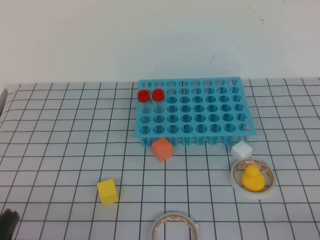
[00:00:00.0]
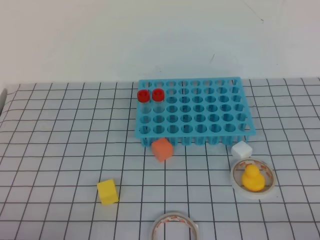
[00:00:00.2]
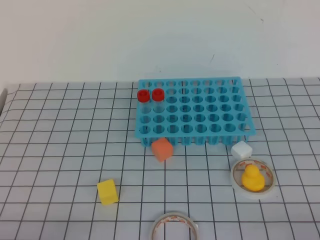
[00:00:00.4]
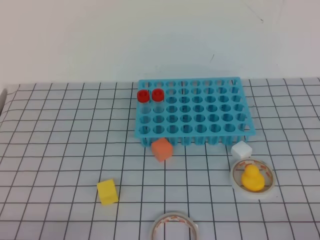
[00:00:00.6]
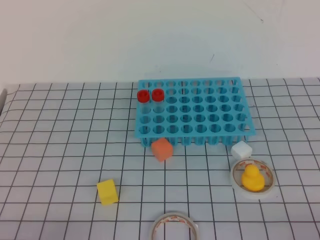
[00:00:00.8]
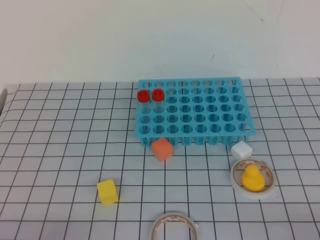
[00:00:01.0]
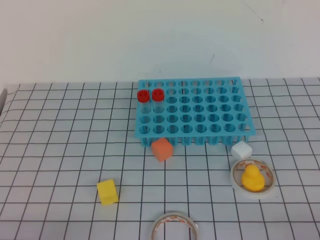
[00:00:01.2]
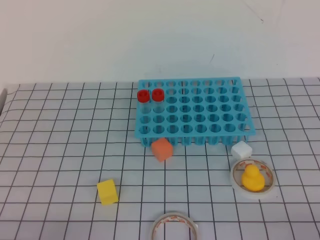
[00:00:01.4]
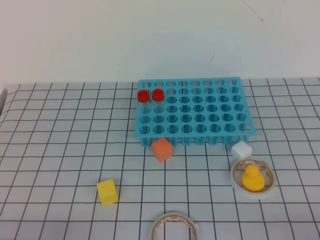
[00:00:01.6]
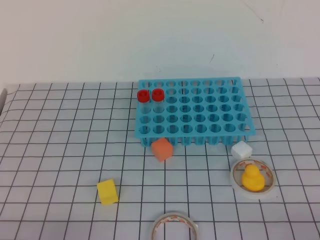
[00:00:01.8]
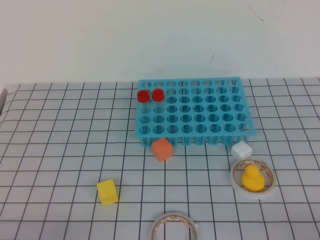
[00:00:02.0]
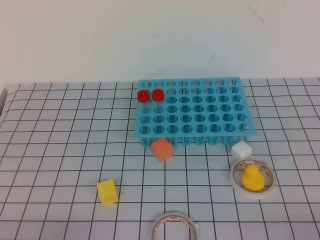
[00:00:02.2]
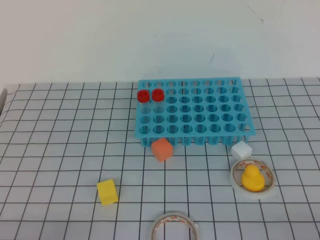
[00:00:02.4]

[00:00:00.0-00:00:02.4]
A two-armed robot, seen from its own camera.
00:00:00.0 to 00:00:01.2: The left gripper ends up about 5 cm from where it was.
00:00:01.2 to 00:00:02.4: Both grippers stay about where they are.
